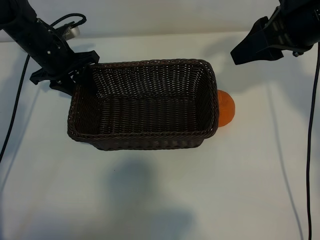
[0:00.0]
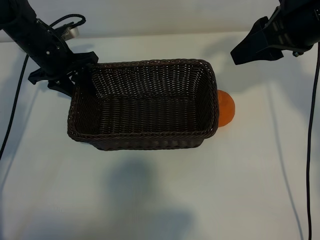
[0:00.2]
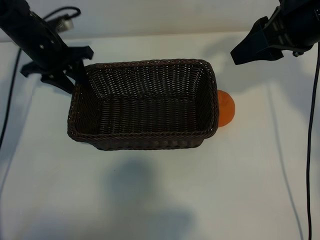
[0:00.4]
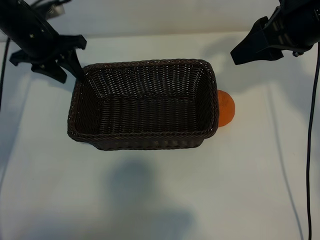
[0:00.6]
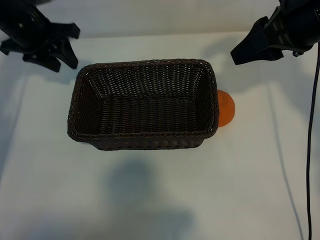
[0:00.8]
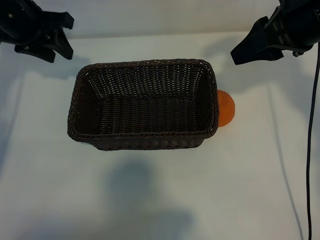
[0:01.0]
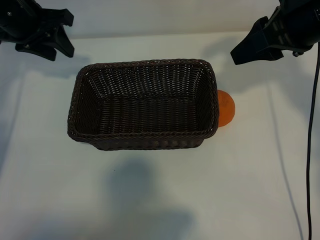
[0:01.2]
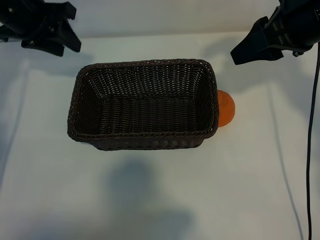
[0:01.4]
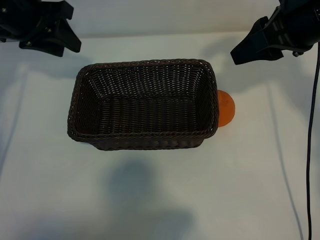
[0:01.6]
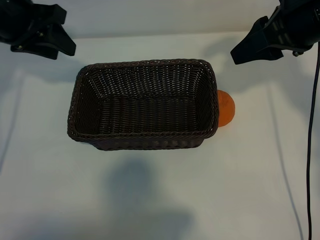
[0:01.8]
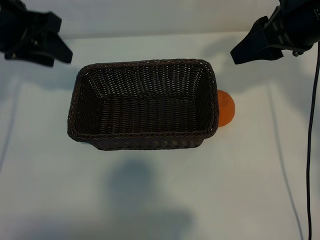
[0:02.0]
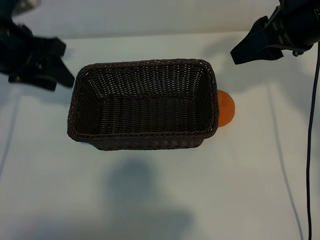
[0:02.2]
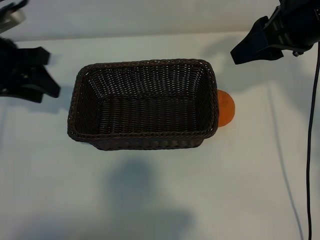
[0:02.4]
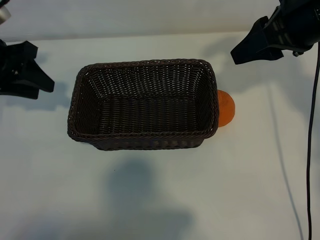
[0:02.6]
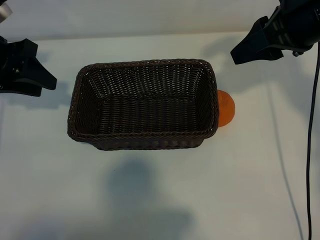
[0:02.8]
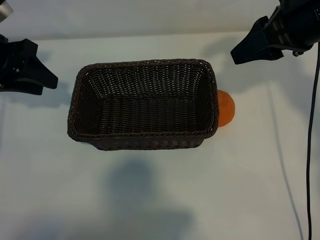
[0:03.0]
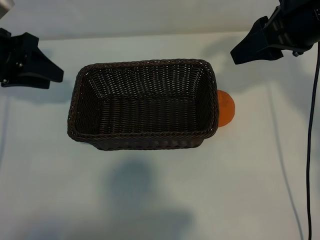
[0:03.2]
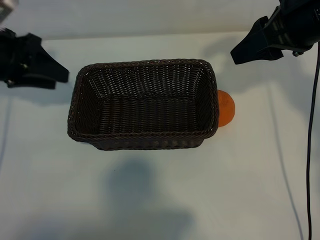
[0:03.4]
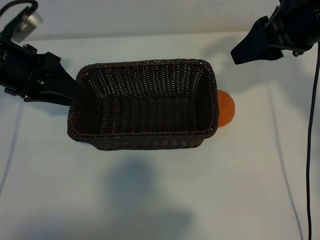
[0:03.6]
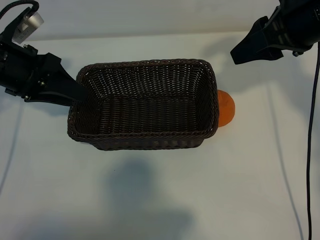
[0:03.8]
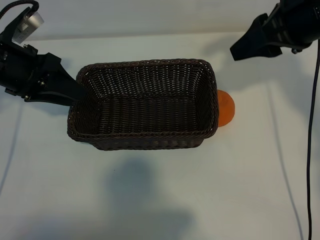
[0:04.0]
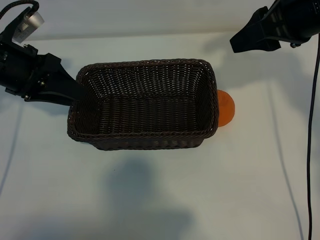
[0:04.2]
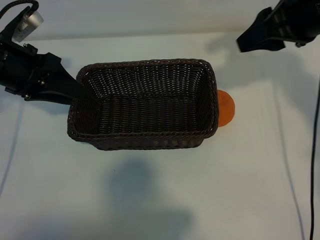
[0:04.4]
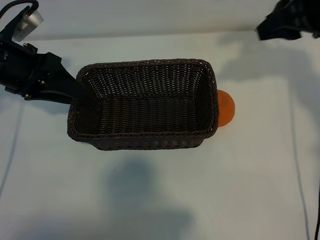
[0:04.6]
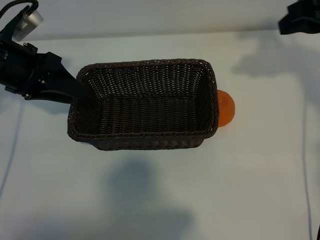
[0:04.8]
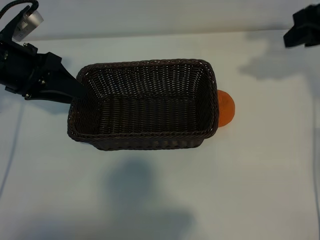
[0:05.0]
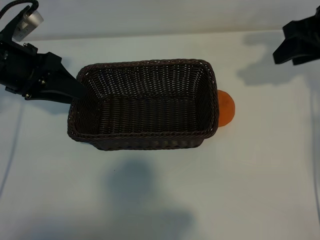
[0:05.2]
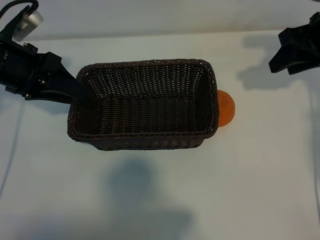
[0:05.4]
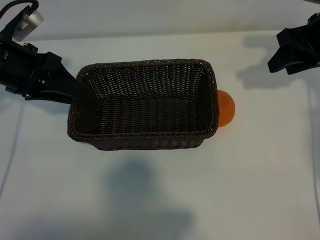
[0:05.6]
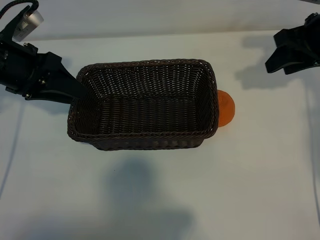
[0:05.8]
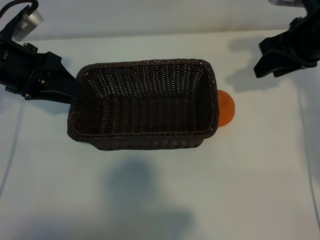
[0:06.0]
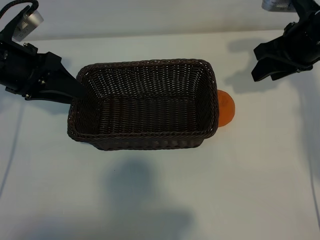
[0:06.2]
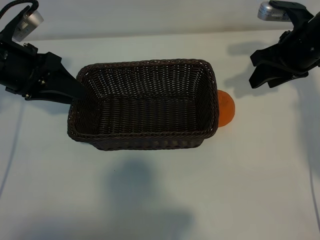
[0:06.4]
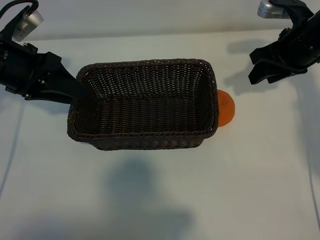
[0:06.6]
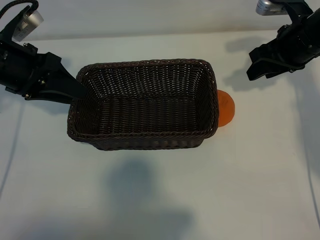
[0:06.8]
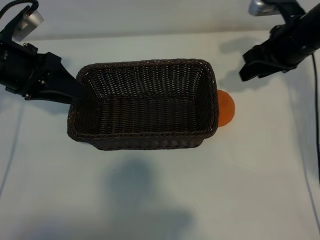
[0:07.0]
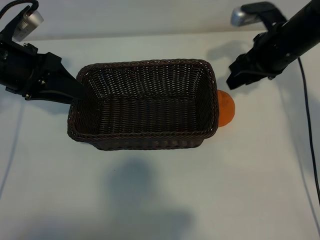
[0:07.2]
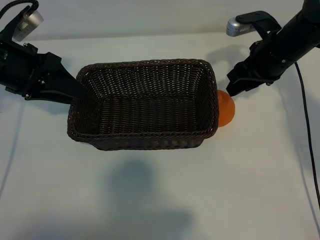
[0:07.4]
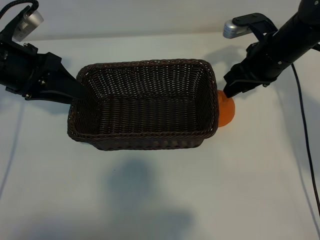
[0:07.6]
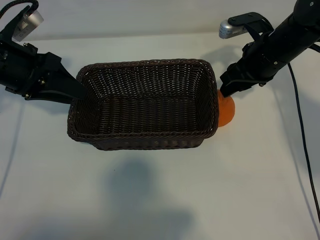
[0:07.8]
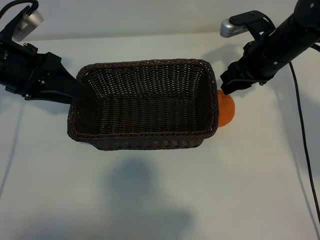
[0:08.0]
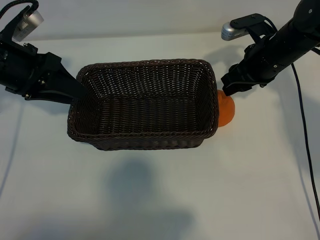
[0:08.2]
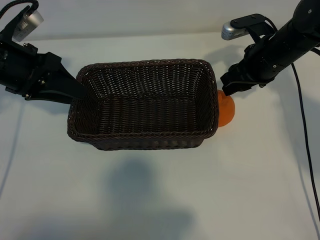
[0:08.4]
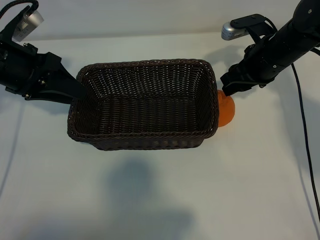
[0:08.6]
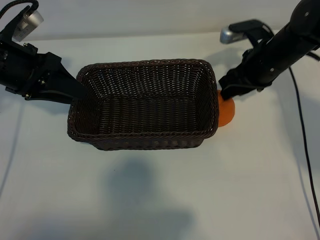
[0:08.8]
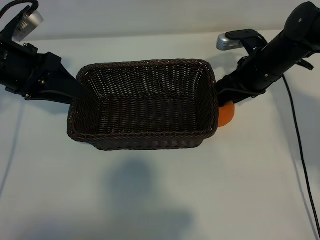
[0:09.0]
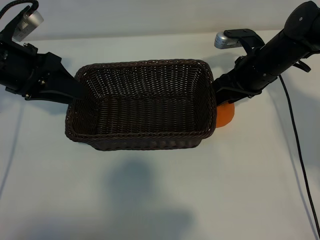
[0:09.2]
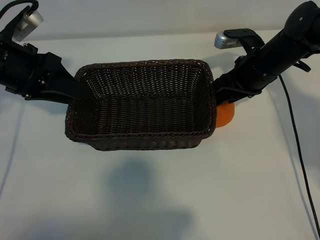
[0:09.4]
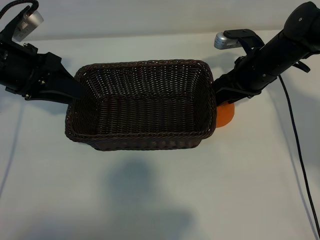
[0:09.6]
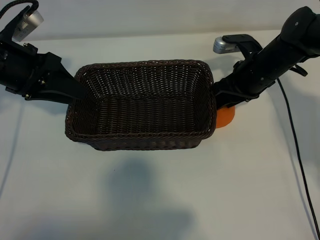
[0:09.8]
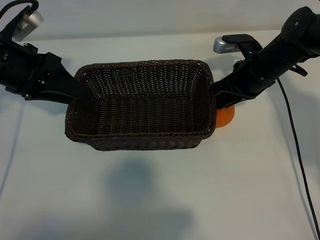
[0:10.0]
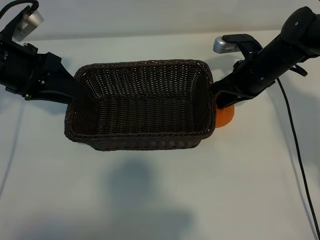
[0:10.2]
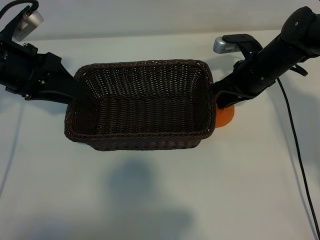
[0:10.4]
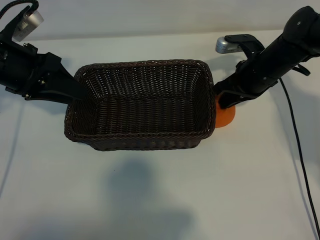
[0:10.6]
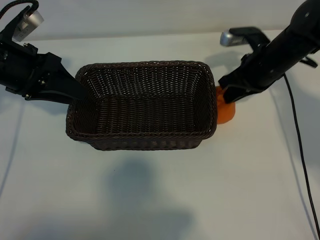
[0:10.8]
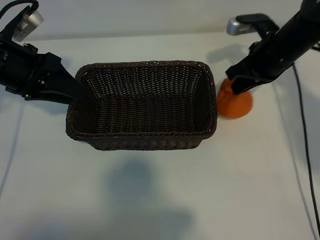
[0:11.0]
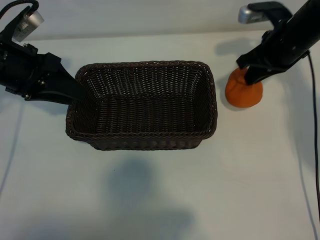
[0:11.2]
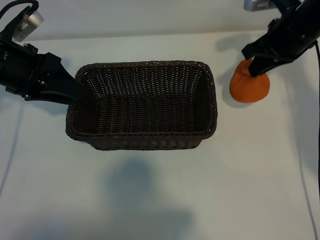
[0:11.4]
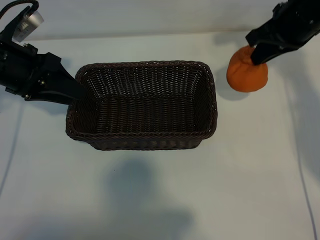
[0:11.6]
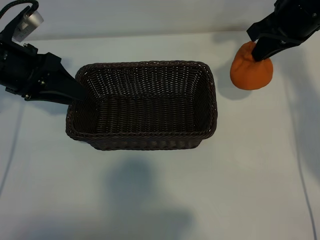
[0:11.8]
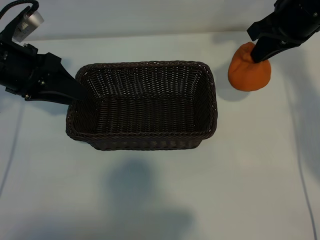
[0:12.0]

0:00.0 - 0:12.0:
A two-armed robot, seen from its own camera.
Task of the whole recording: pick up the orange and put it into the basket.
Step, 0:00.0 - 0:10.2: Grasp the orange with right gripper.

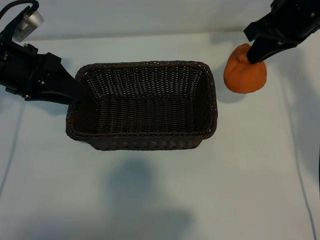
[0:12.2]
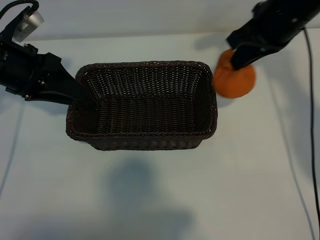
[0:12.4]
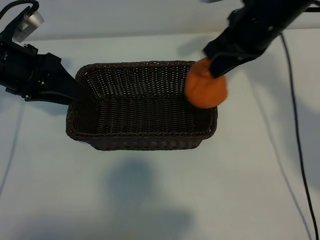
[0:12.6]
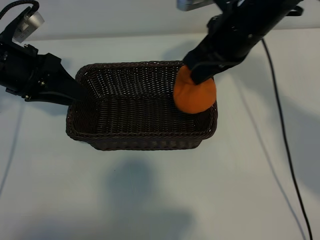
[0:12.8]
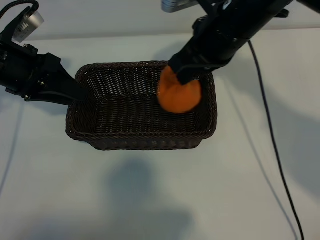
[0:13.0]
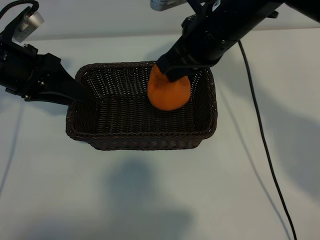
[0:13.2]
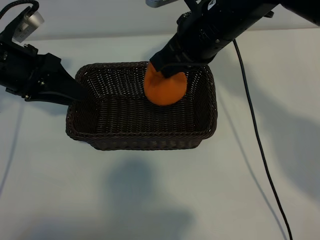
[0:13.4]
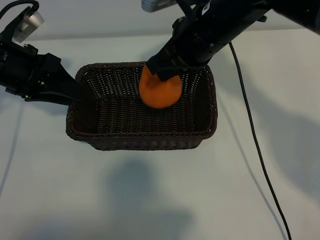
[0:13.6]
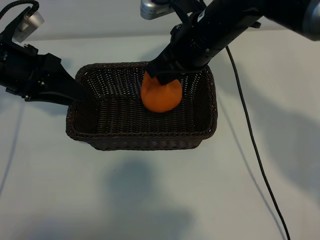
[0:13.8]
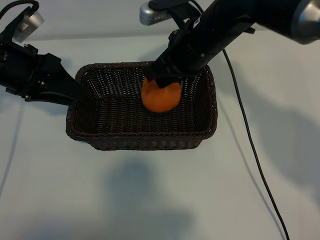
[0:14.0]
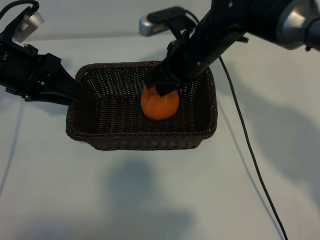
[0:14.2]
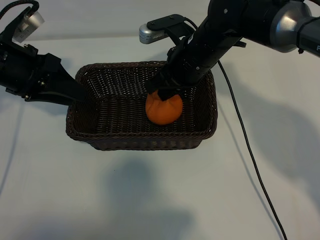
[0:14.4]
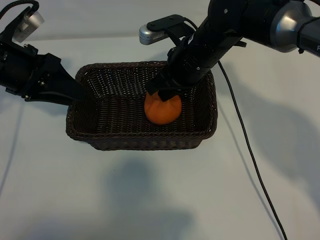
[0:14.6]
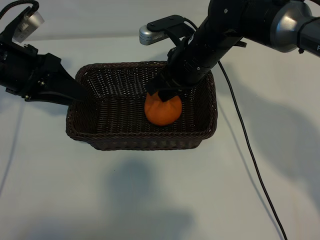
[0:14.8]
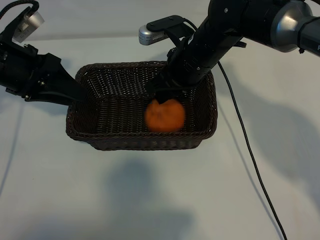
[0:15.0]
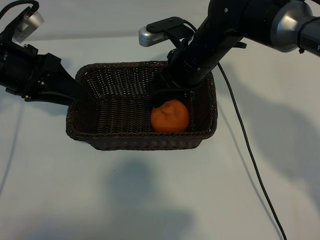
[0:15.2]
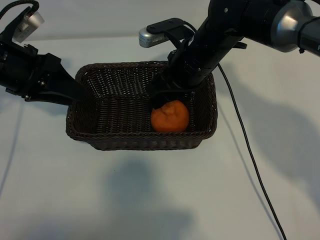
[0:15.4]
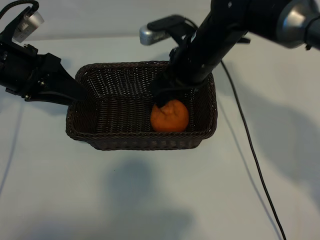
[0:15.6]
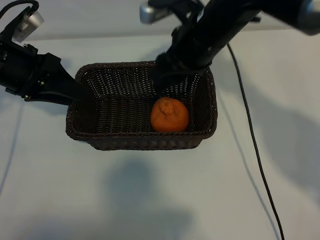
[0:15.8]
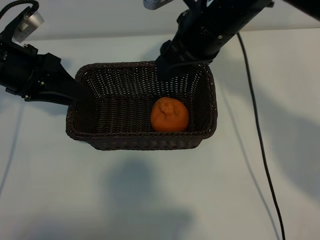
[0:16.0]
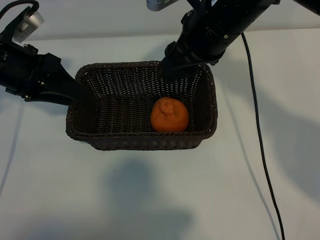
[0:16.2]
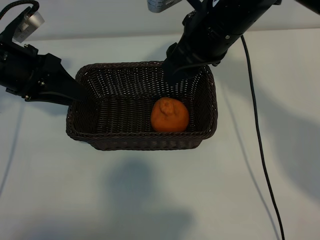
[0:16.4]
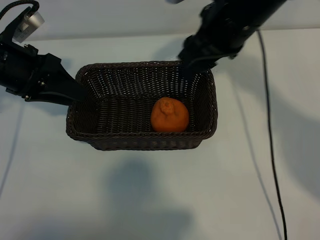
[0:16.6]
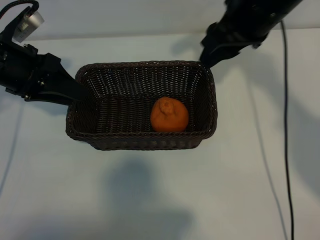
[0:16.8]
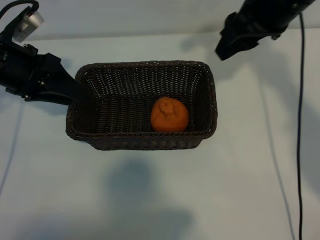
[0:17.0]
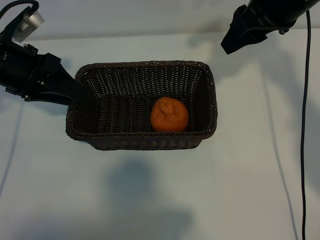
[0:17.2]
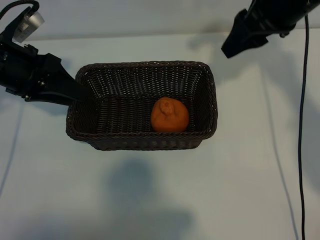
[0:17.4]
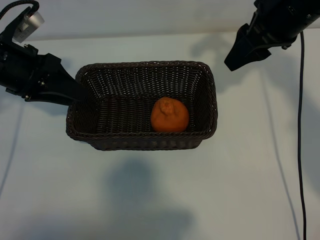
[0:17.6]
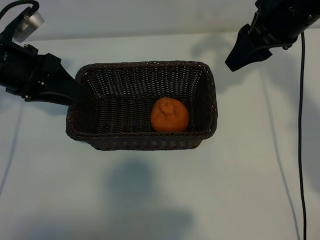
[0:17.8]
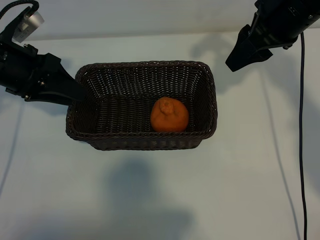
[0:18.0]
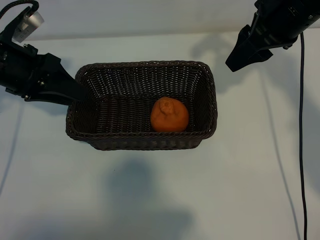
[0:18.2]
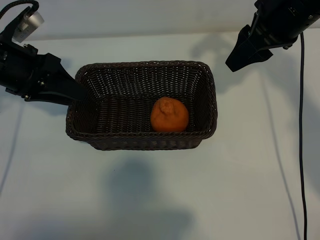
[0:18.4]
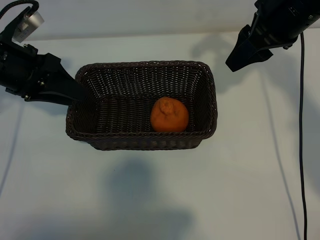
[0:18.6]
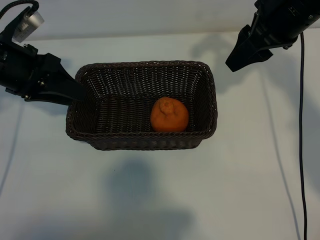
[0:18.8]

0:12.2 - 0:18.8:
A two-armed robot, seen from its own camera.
Task of the whole recording: pick up the orange and put it into the basket.
Step, 0:12.2 - 0:15.0: Place the orange in the basket with right gripper.

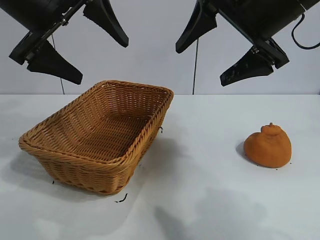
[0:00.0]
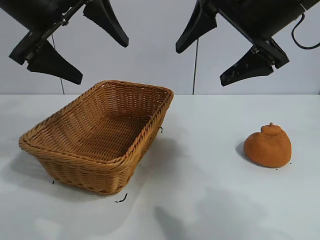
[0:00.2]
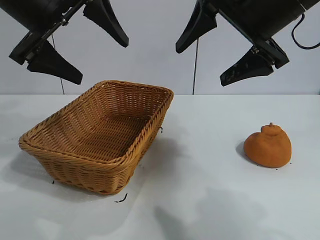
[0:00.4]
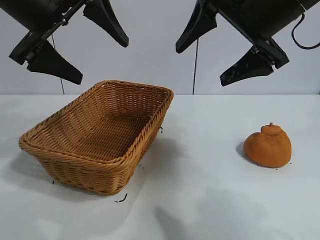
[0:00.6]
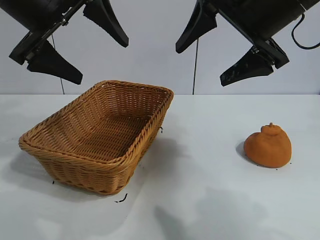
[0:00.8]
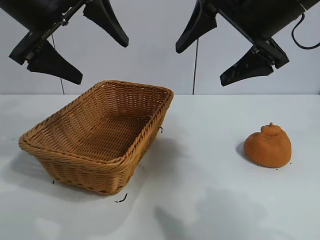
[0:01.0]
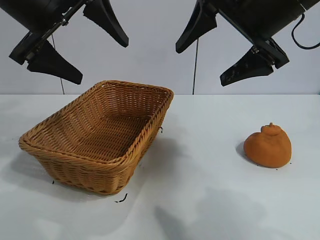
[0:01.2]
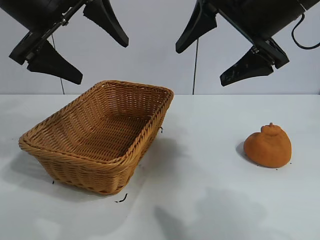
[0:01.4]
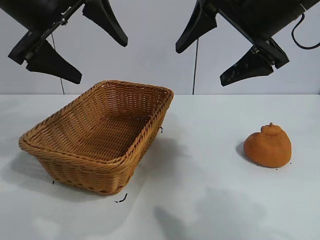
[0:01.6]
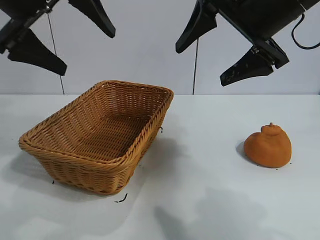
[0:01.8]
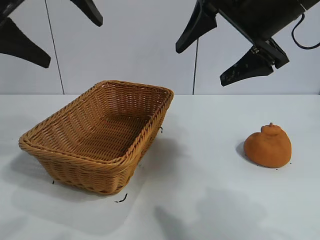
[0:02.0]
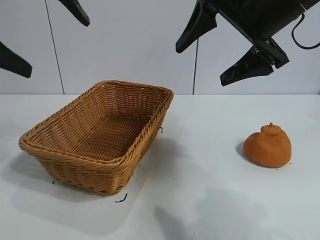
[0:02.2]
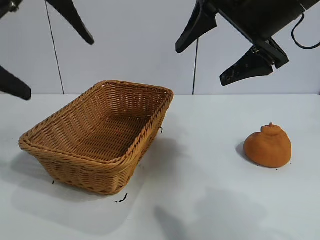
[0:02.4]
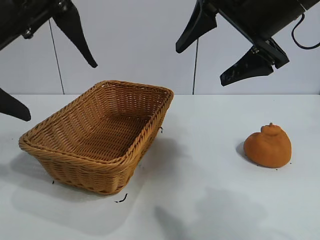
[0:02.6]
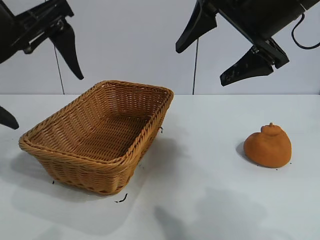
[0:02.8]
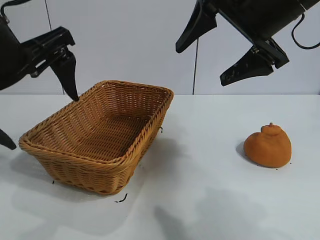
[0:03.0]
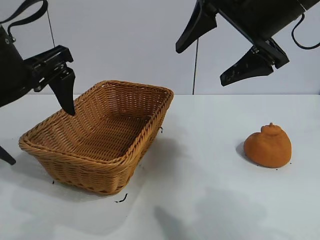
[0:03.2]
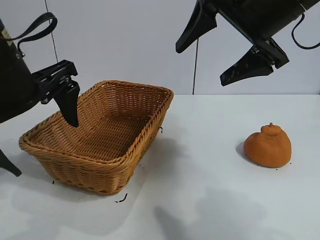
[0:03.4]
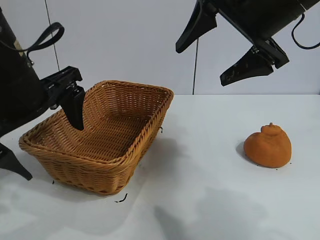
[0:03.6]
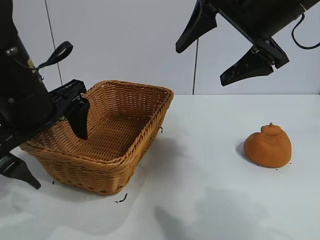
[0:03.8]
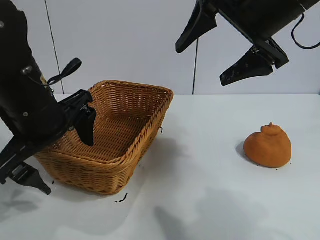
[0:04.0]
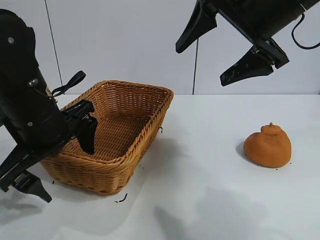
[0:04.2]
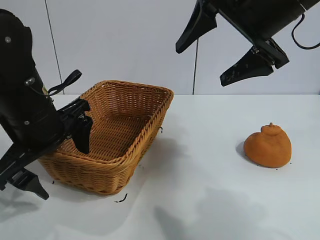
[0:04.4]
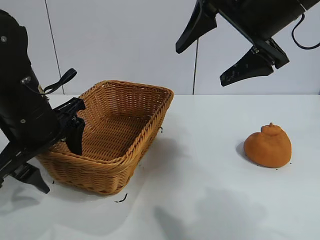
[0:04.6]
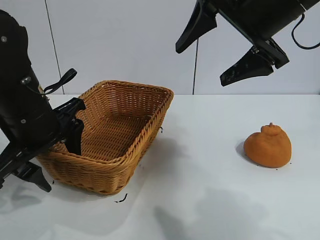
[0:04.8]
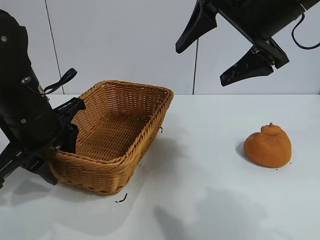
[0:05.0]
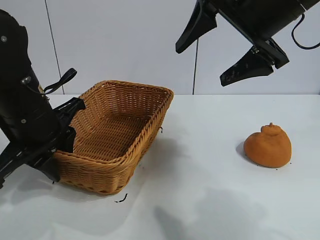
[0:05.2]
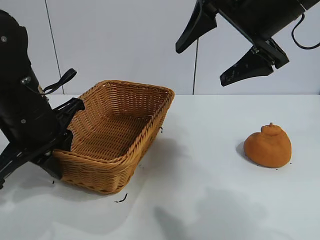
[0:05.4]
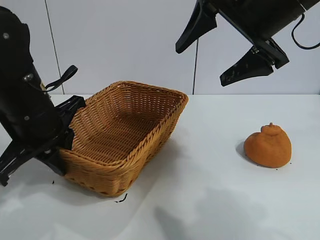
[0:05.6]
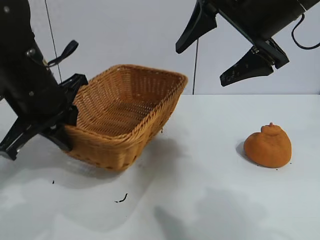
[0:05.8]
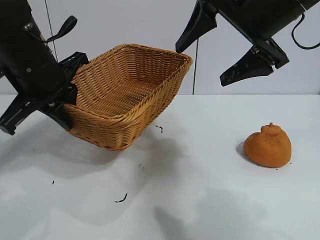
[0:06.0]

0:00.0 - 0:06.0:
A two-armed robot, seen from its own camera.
Task of the whole recording: pick up the orange and put it into the basket.
Step, 0:01.6 - 0:05.4: Grasp the basket with left gripper.
